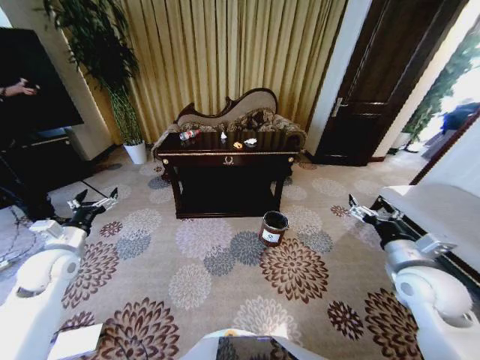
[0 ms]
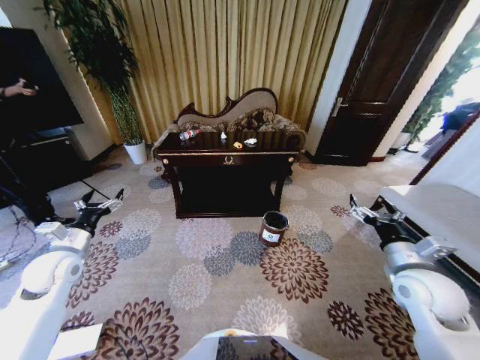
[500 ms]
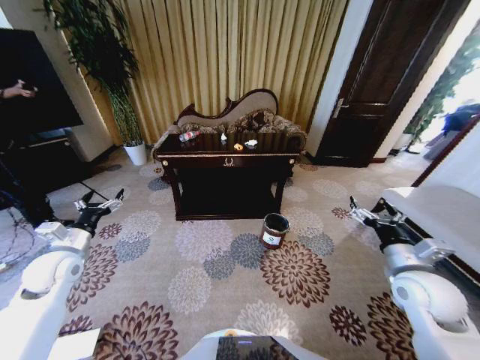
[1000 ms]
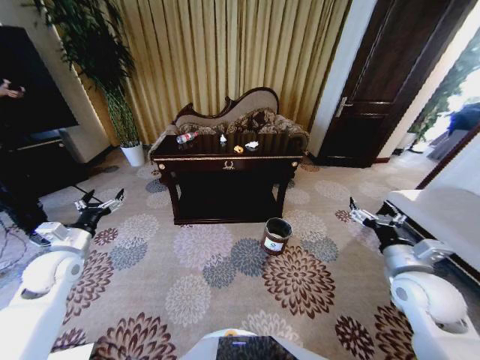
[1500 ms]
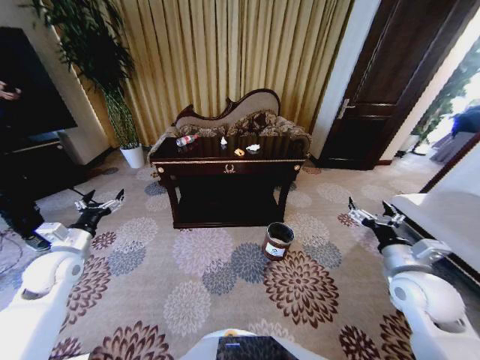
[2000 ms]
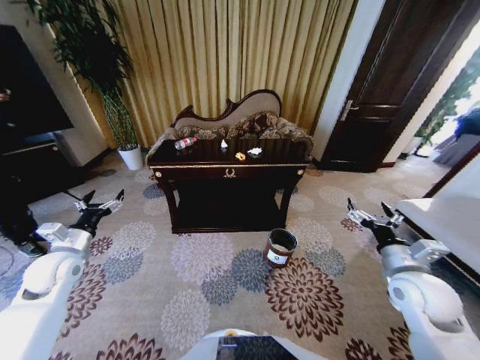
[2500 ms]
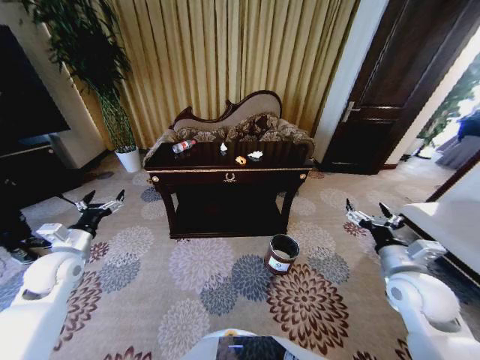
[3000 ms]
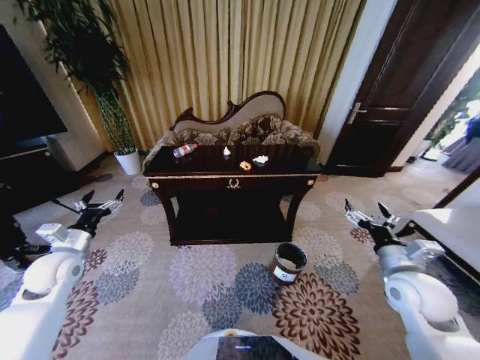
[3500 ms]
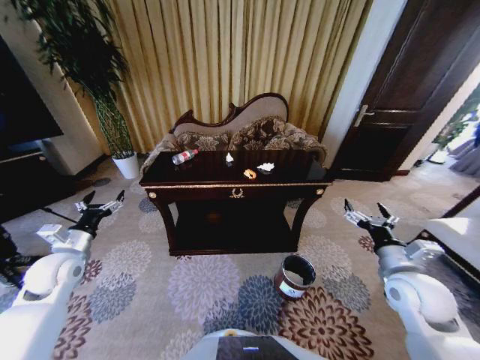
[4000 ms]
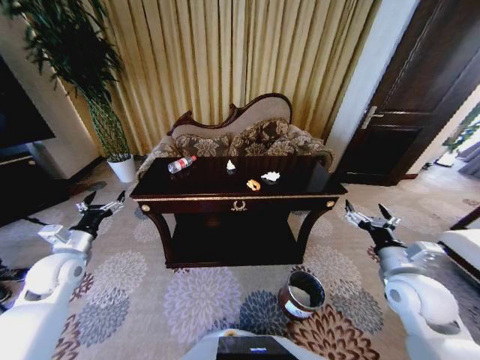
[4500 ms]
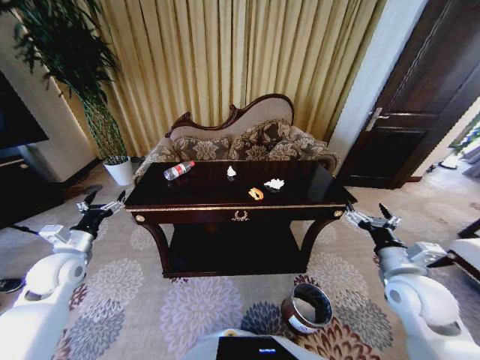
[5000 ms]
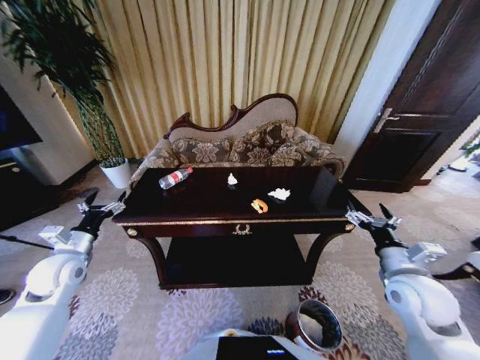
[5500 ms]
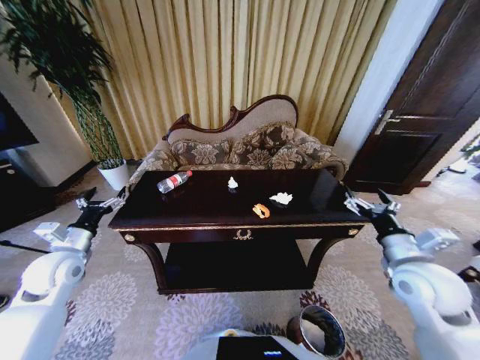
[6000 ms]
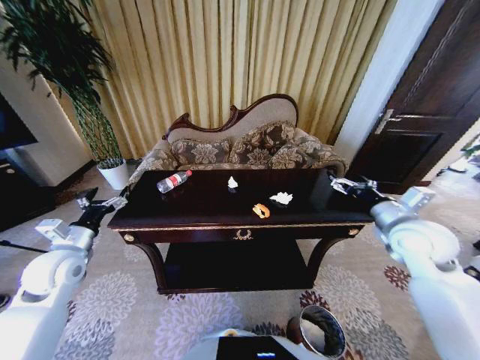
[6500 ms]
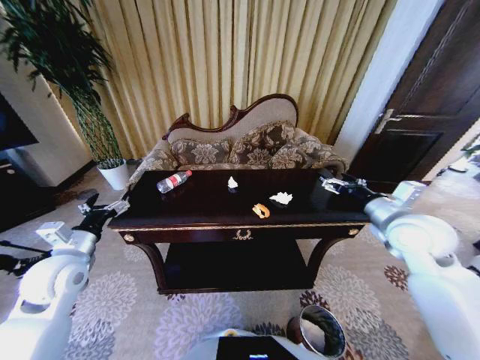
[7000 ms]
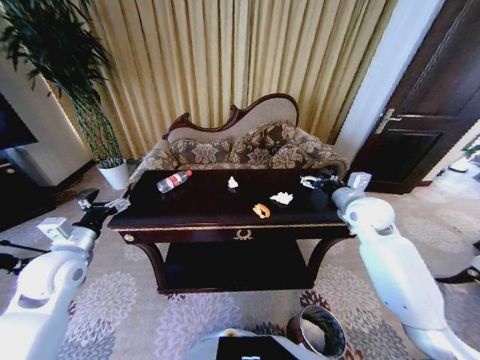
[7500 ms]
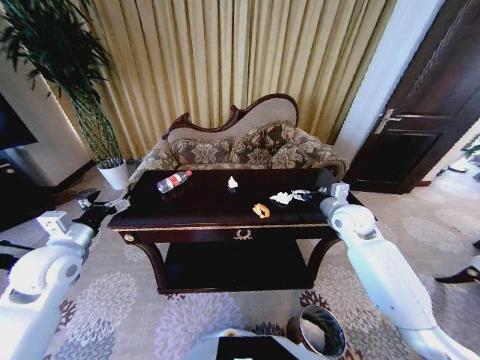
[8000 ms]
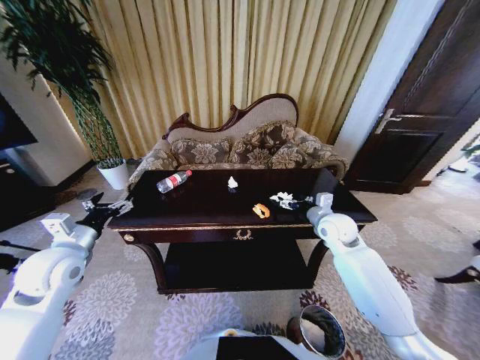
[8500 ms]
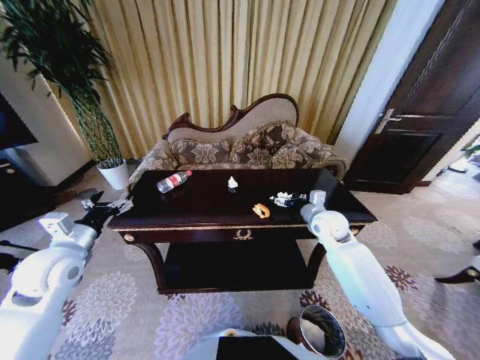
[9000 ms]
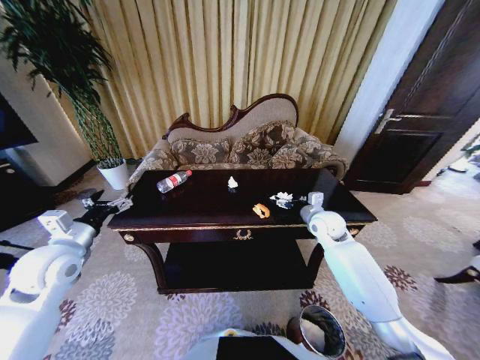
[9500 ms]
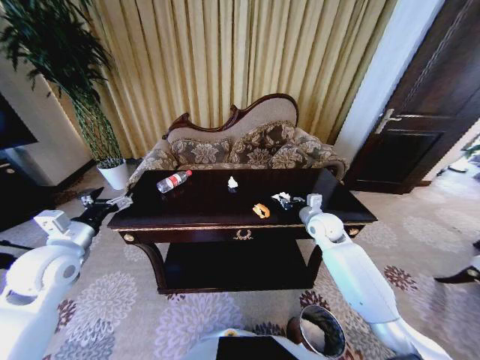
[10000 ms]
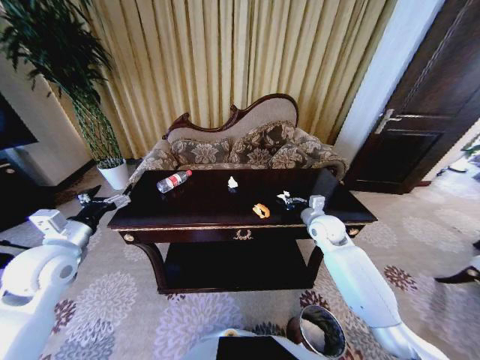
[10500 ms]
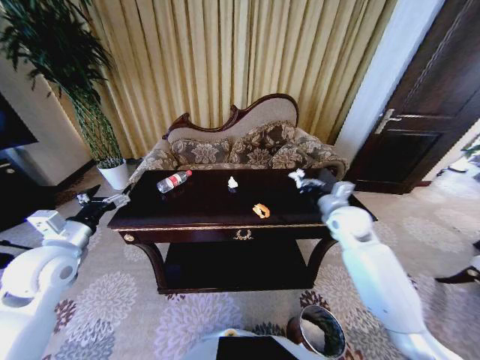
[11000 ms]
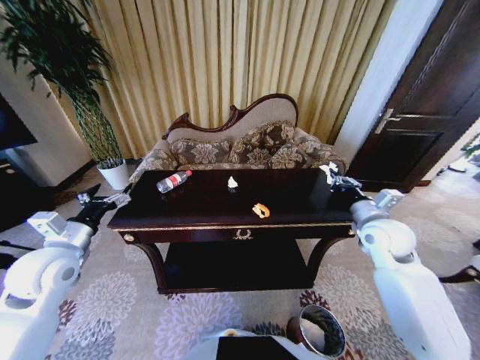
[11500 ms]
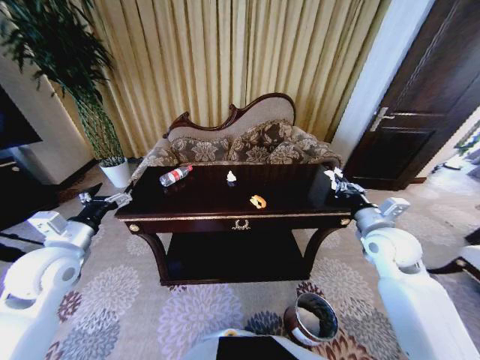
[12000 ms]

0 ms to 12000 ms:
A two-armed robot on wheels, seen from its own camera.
Task of the whole recording: Move to the front of the table and place the trash on the table into the trash bin.
6000 ms to 8000 ms: The right gripper heads forward, covering approximately 20 cm. The left gripper moves upward, roughly 5 cm.
8000 ms to 10000 ms: The right gripper is displaced downward by about 5 cm, and closes.
10000 ms to 12000 ms: The right gripper shifts some 15 cm backward, to the right and upward, and closes its fingers.

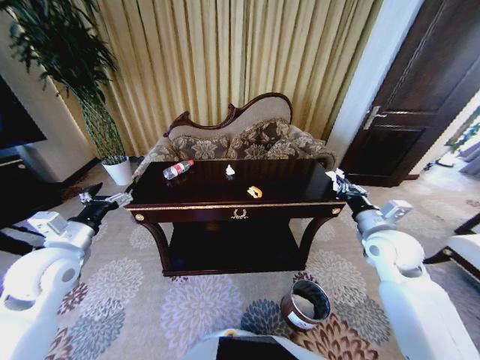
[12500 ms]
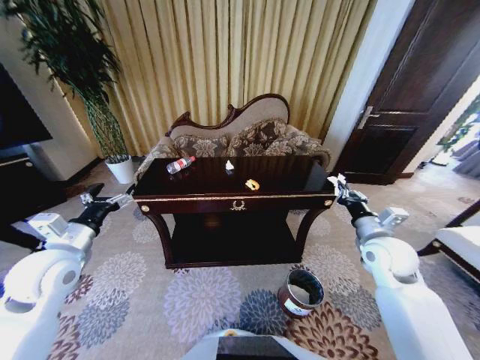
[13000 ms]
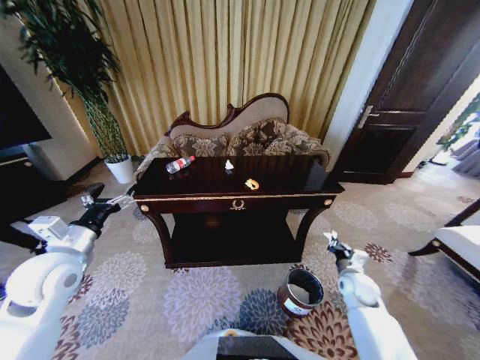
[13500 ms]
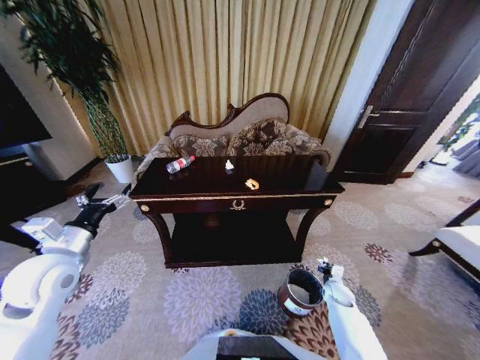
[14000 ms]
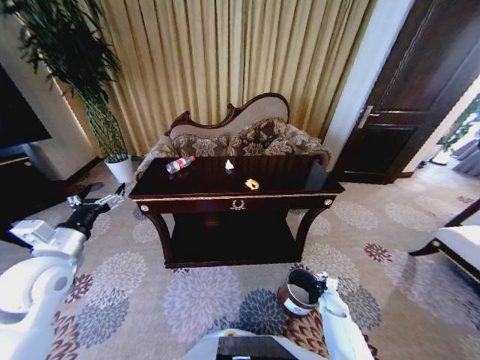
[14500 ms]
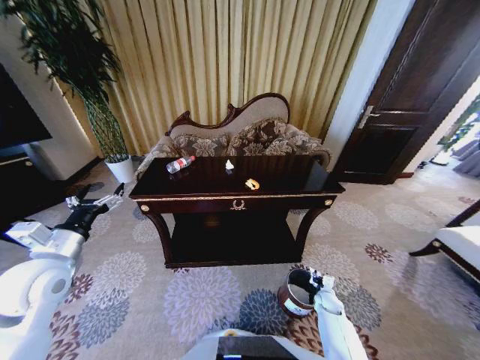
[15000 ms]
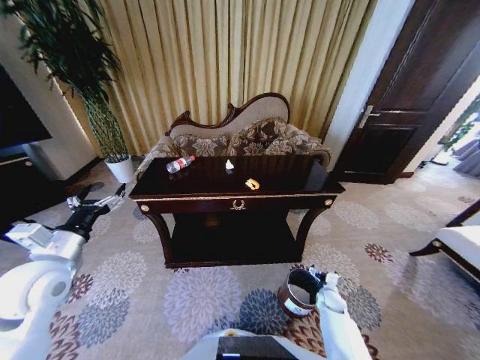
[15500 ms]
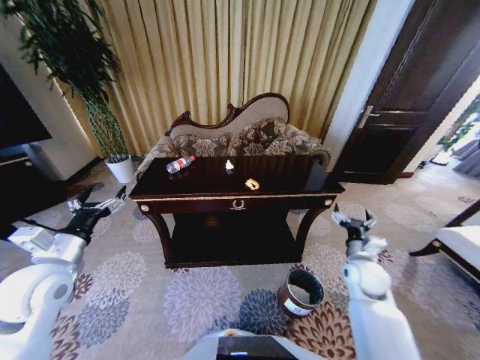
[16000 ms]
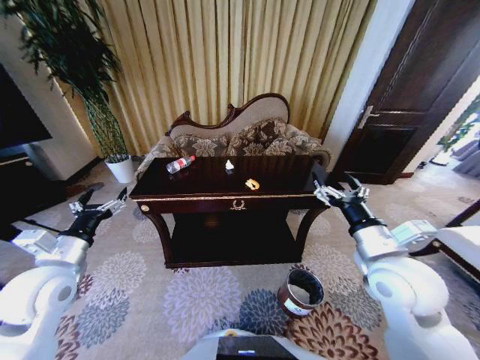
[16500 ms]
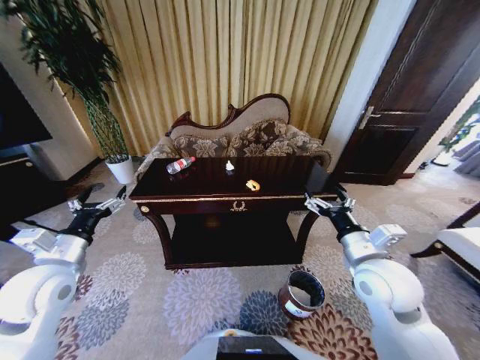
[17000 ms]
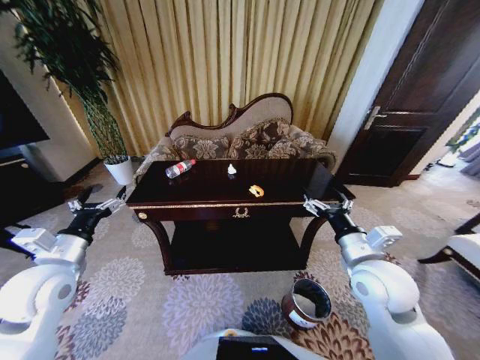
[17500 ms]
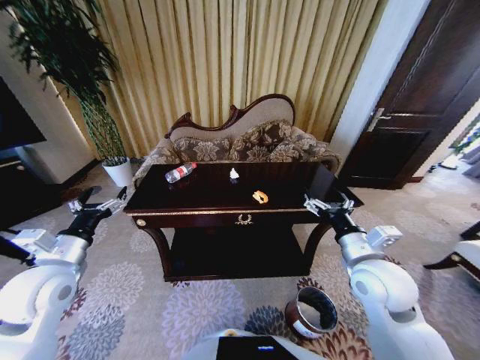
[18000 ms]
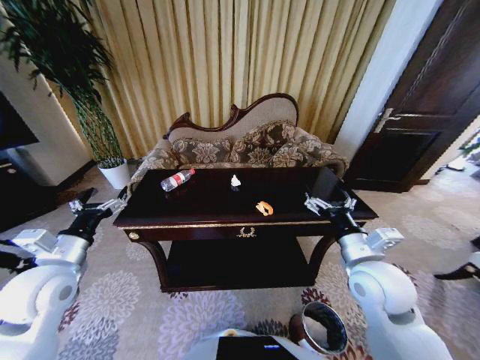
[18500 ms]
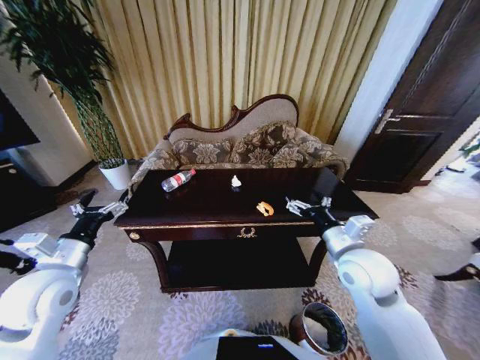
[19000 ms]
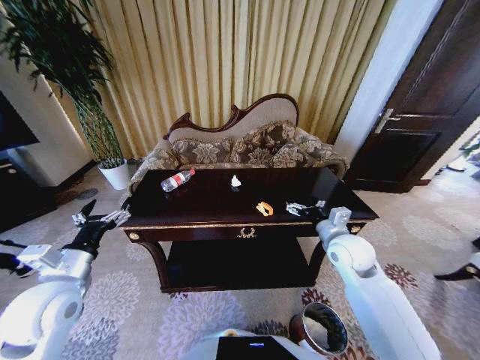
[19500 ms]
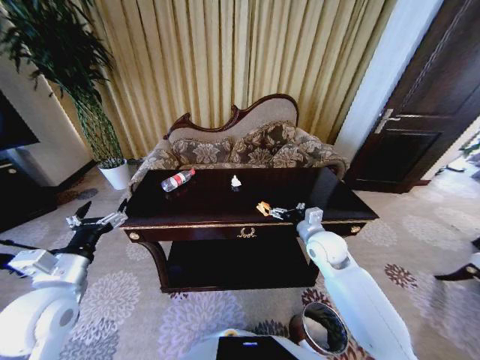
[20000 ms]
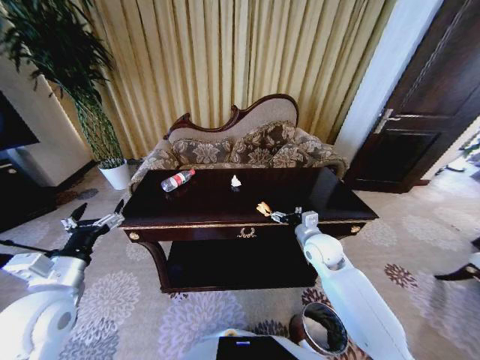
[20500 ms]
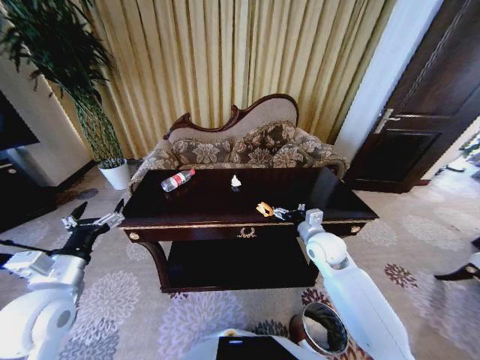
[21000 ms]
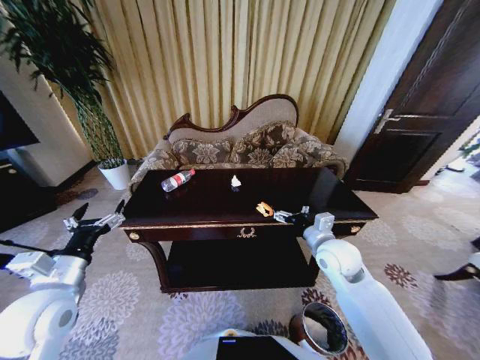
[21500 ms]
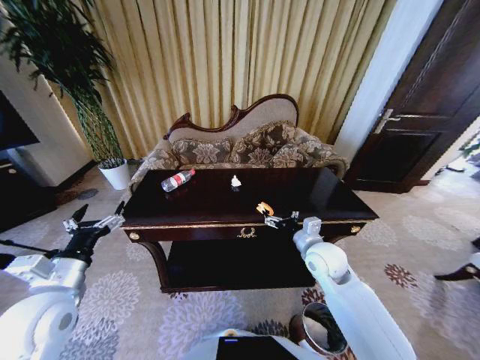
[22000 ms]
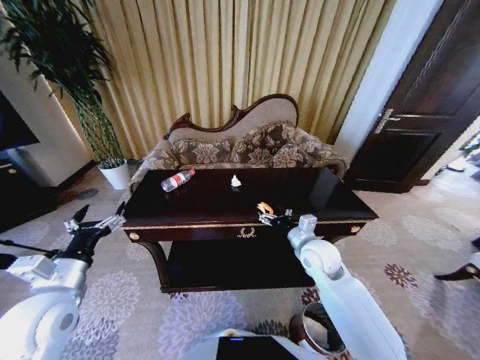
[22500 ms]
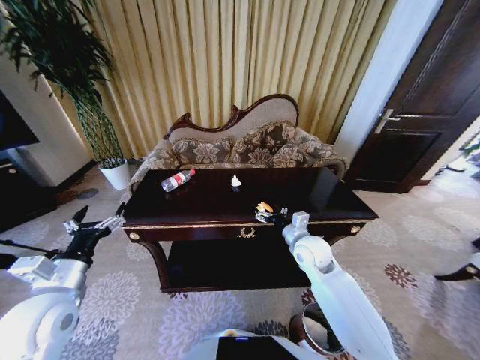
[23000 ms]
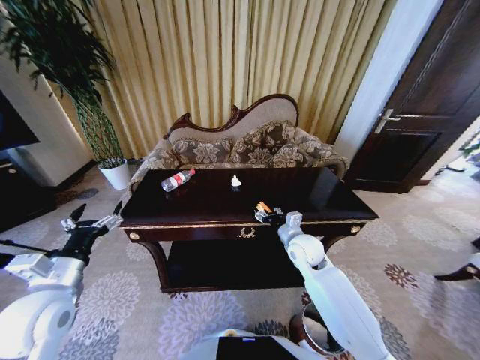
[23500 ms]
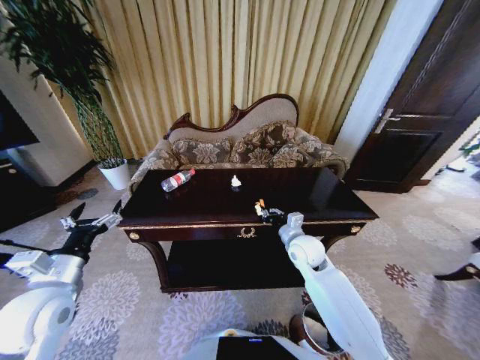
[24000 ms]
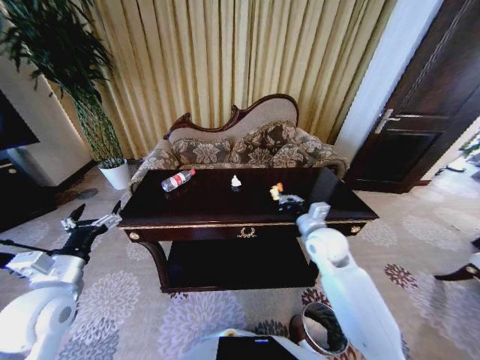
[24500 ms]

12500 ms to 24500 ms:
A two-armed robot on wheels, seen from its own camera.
Task of the whole recording: Move to the front of the table and place the trash on the table into the trash bin.
12500 ms to 14500 ms: The right gripper goes about 40 cm downward.
14500 ms to 16500 ms: The right gripper goes about 40 cm upward, and opens.
18500 ms to 20500 ms: The right gripper heads forward and downward, covering about 15 cm, while the left gripper moves some 5 cm.
20500 ms to 22500 ms: There are only small adjustments of the grippers.
22500 ms to 24500 ms: The right gripper closes its fingers.

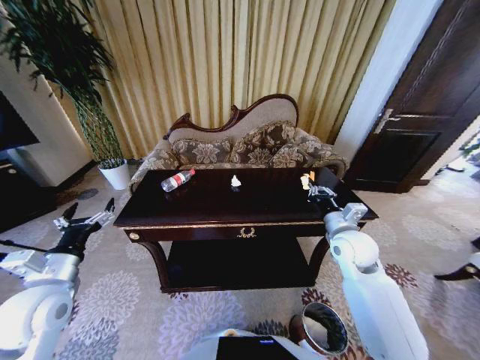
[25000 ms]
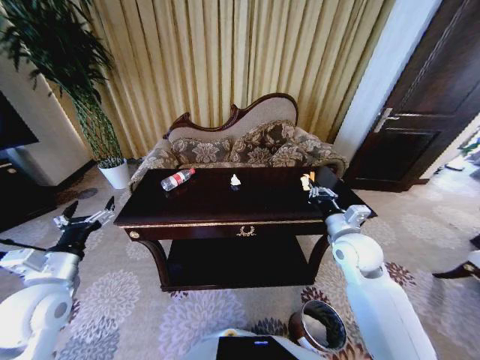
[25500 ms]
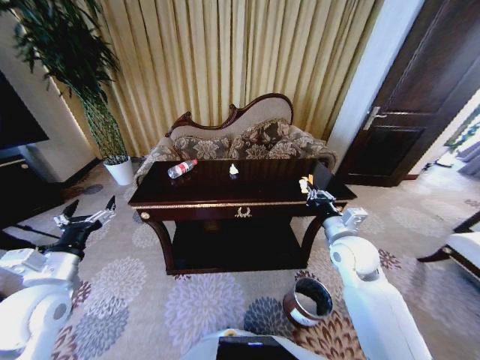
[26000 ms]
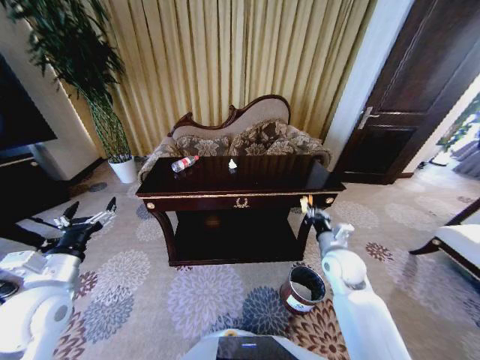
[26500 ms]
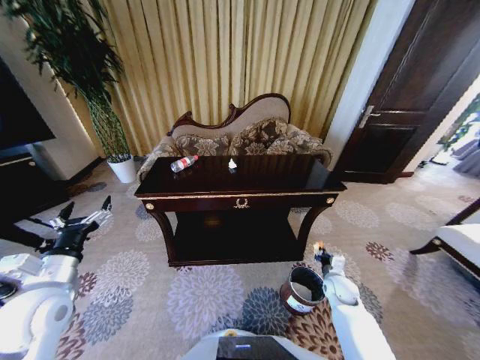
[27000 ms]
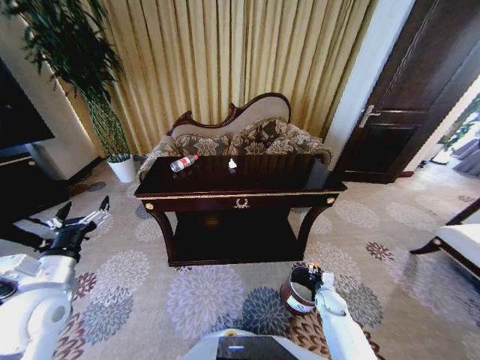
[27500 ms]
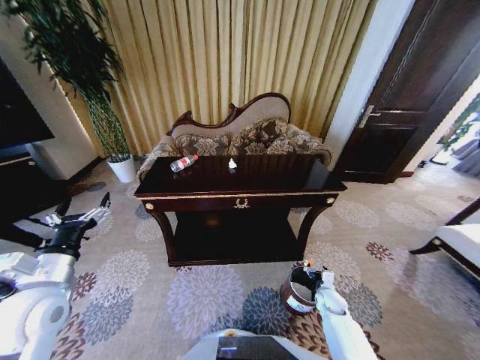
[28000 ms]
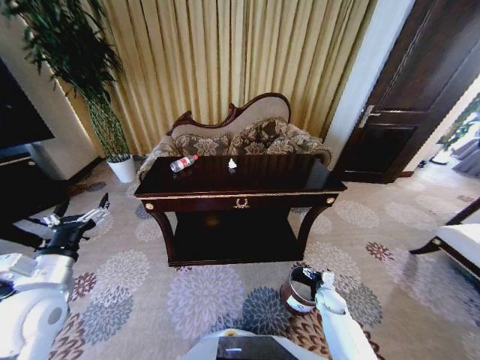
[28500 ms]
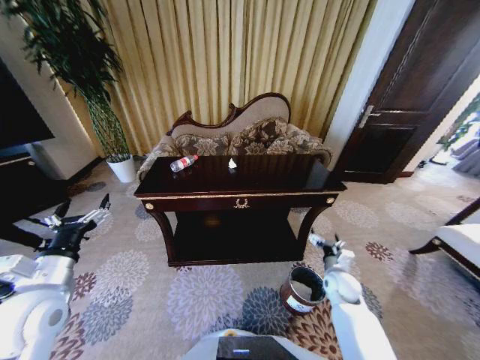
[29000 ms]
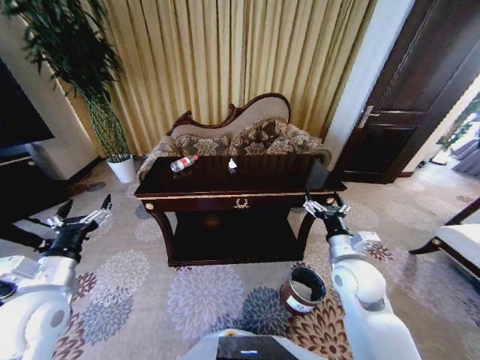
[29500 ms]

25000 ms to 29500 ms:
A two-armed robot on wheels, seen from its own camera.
Task of the whole recording: Move to the front of the table and place the trash on the table into the trash bin.
25000 ms to 27000 ms: The right gripper goes about 25 cm downward.
27000 ms to 29500 ms: The right gripper is displaced upward and to the left by some 25 cm, and opens its fingers.
